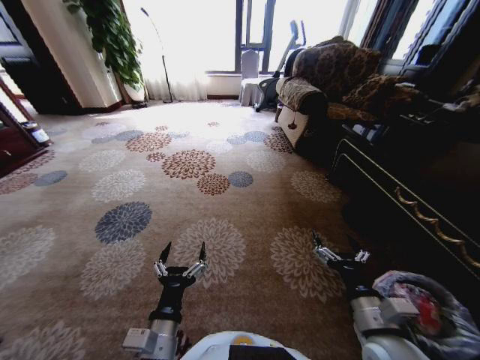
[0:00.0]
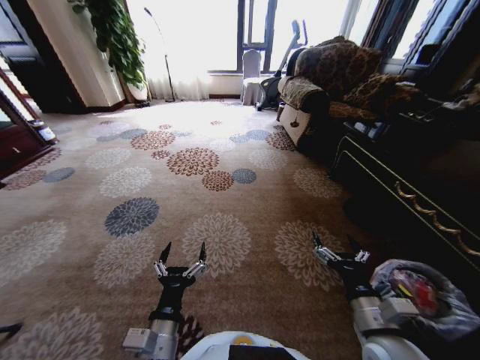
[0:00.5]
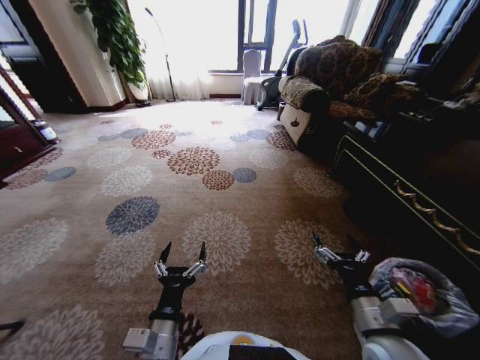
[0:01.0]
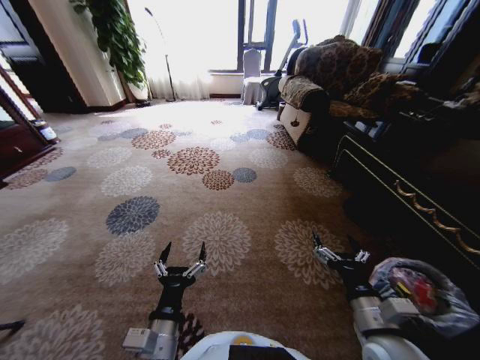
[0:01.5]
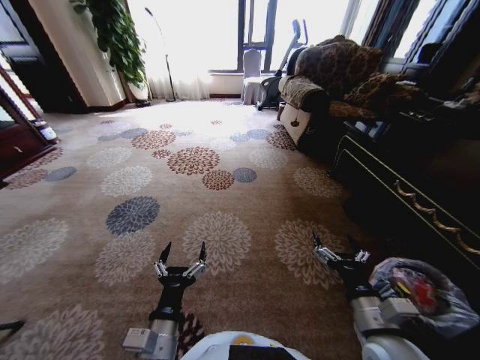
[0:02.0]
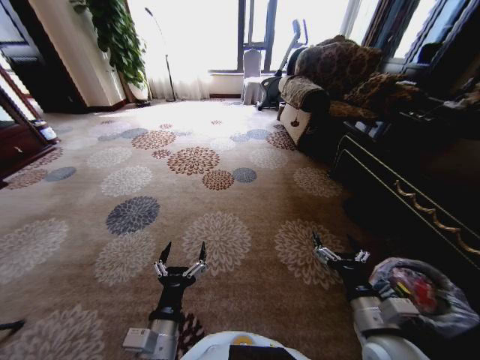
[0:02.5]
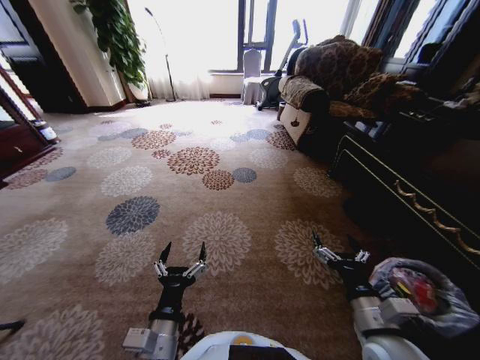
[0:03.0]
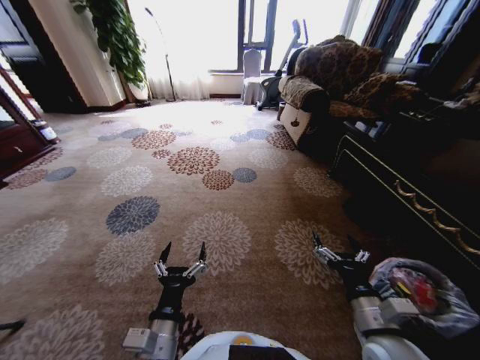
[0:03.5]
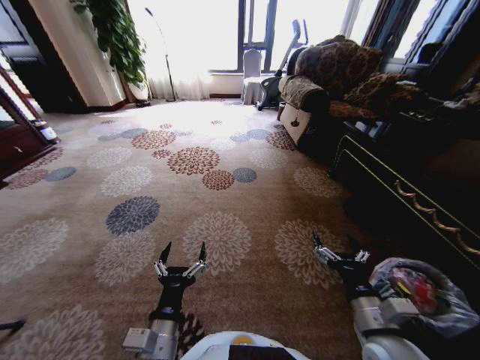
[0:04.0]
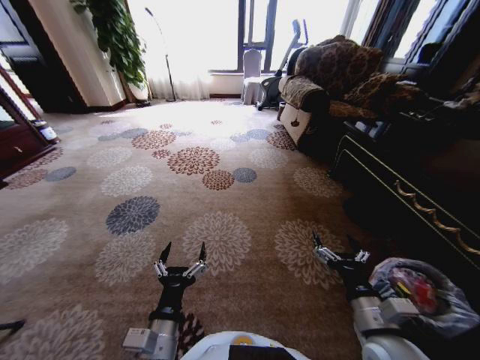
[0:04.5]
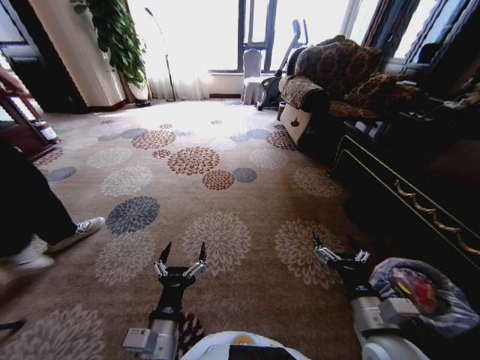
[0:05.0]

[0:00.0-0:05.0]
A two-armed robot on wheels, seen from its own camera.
Task of the whole recording: Pick up the trash from the ground and place it into the trash bin.
0:00.0 to 0:05.0: Both grippers stay put.
